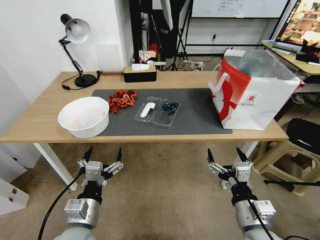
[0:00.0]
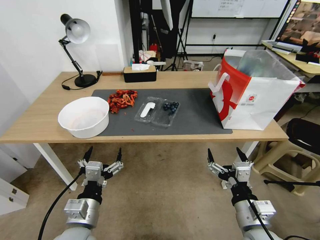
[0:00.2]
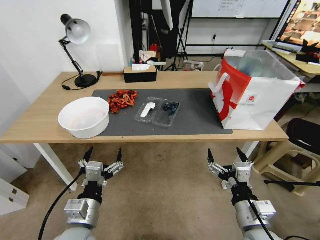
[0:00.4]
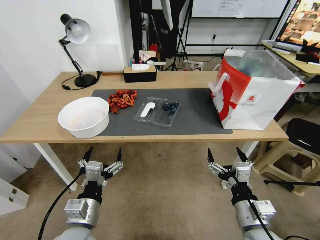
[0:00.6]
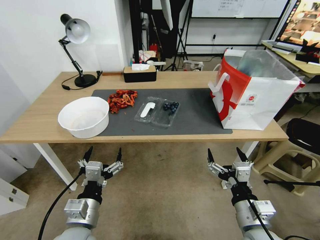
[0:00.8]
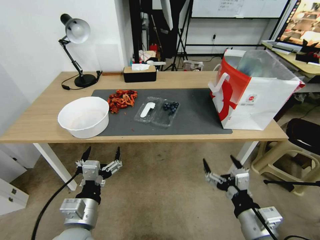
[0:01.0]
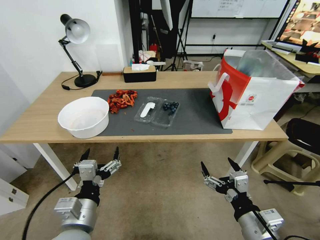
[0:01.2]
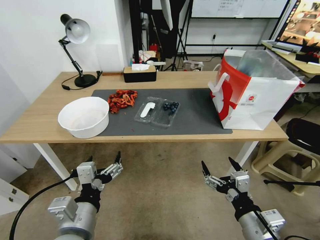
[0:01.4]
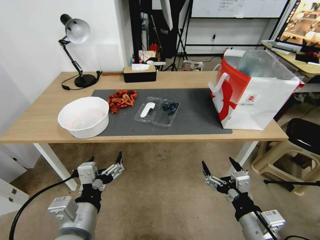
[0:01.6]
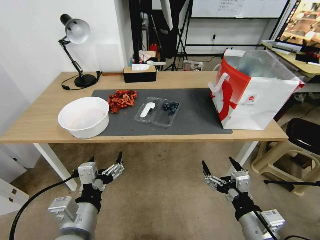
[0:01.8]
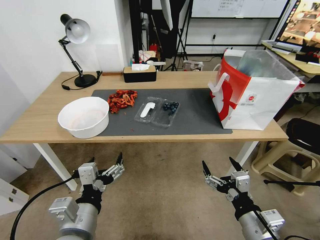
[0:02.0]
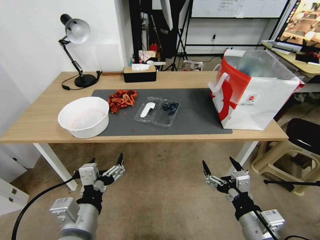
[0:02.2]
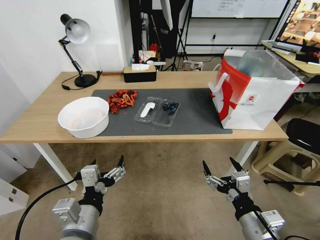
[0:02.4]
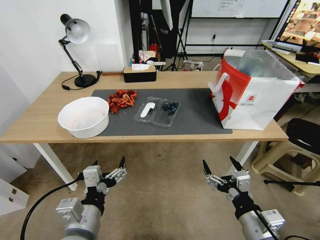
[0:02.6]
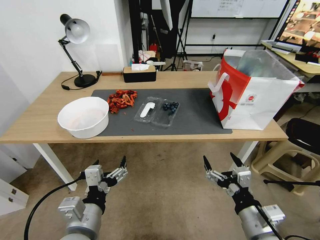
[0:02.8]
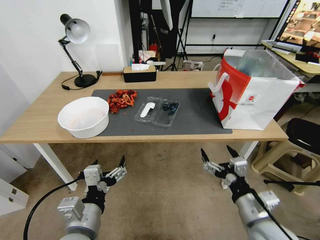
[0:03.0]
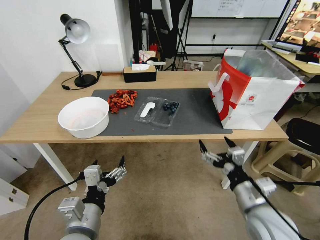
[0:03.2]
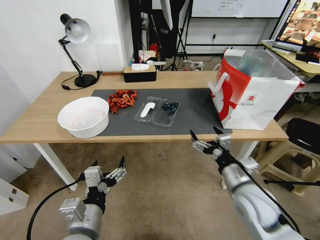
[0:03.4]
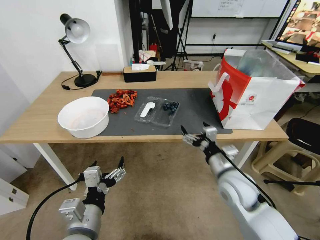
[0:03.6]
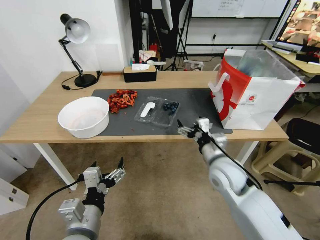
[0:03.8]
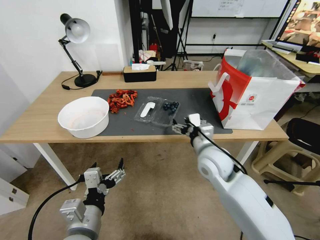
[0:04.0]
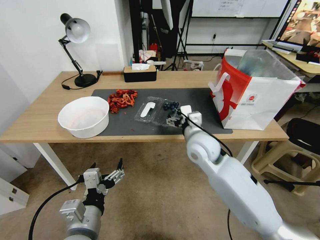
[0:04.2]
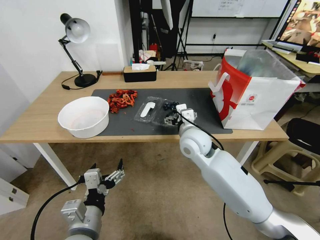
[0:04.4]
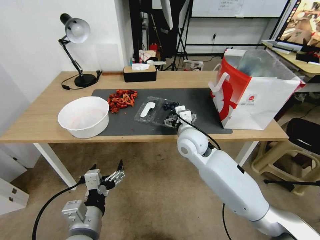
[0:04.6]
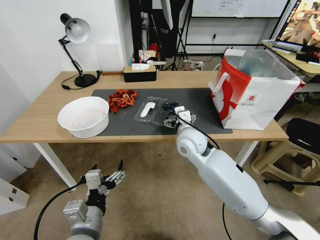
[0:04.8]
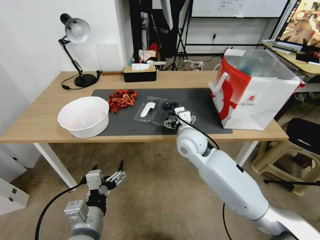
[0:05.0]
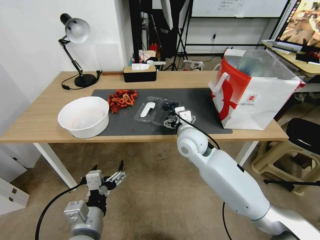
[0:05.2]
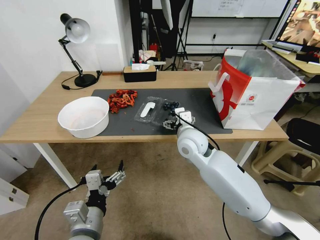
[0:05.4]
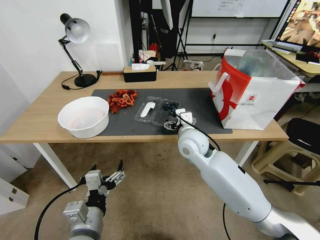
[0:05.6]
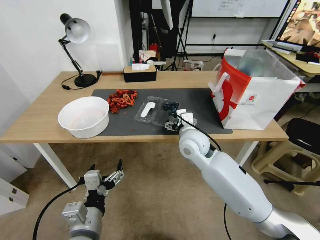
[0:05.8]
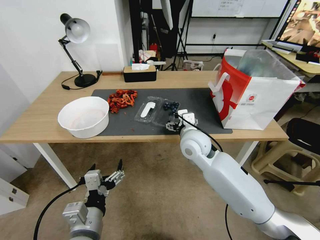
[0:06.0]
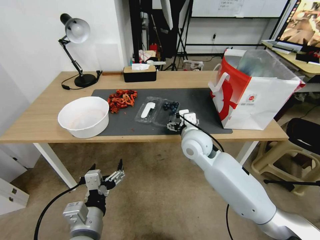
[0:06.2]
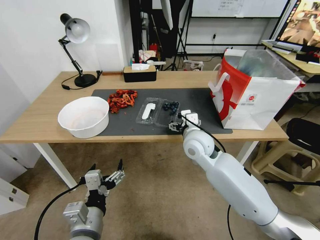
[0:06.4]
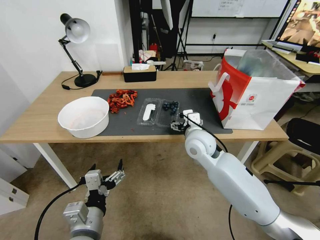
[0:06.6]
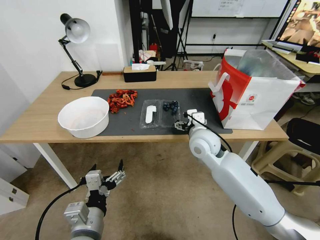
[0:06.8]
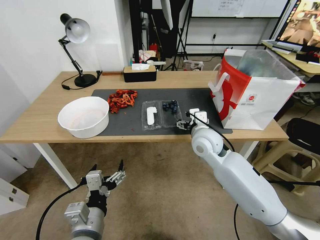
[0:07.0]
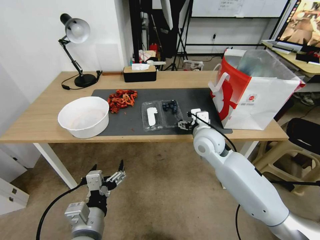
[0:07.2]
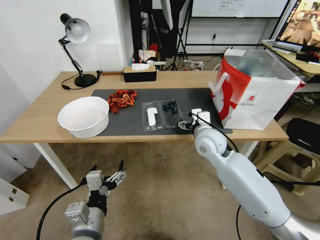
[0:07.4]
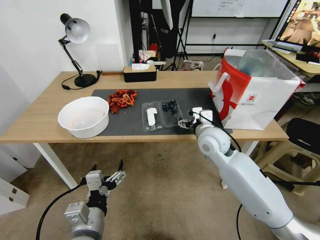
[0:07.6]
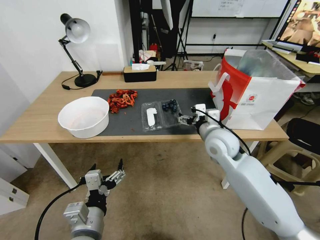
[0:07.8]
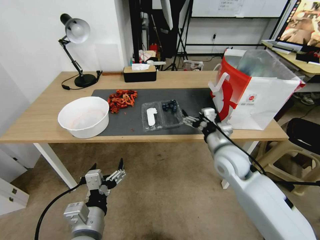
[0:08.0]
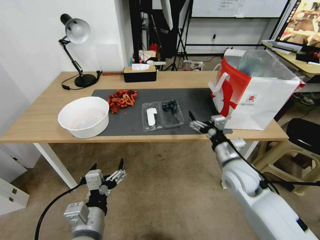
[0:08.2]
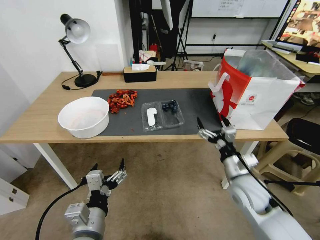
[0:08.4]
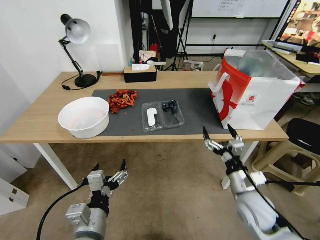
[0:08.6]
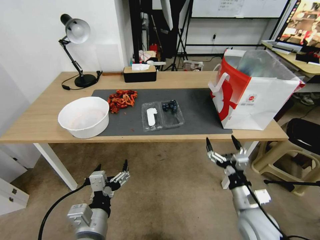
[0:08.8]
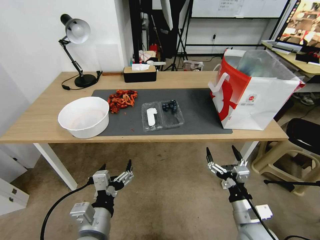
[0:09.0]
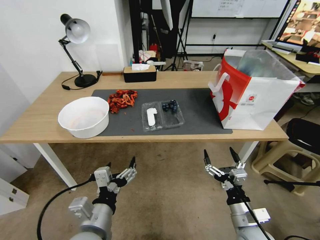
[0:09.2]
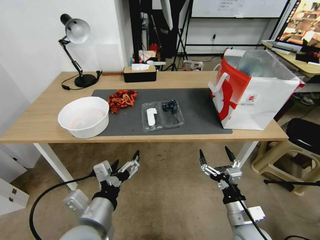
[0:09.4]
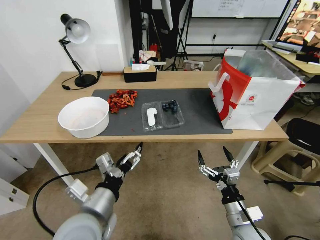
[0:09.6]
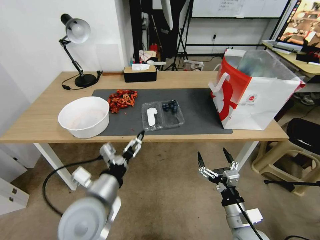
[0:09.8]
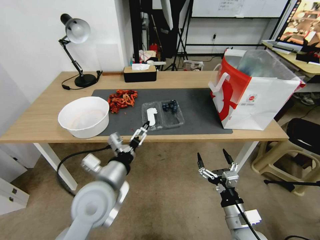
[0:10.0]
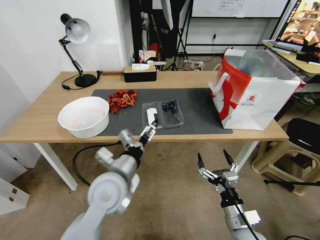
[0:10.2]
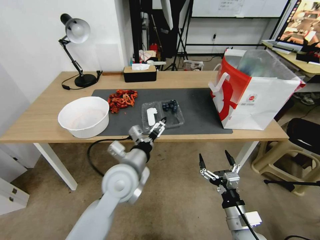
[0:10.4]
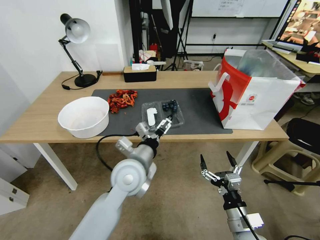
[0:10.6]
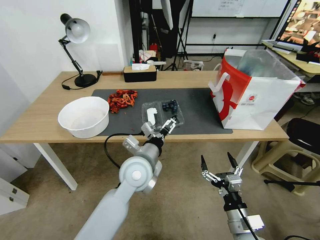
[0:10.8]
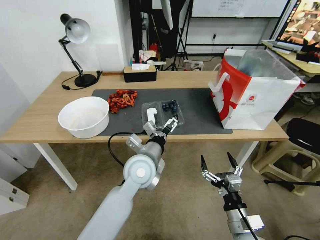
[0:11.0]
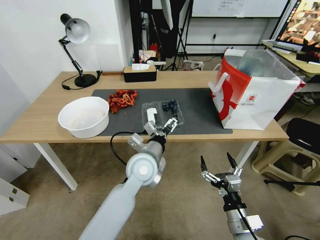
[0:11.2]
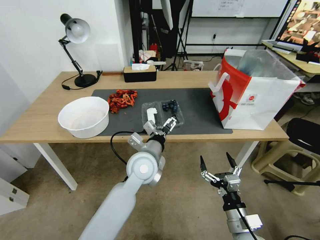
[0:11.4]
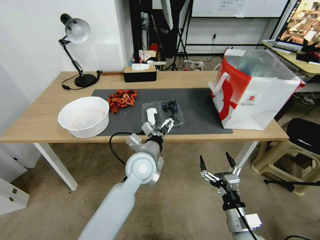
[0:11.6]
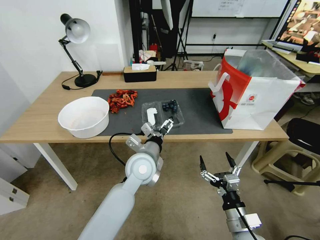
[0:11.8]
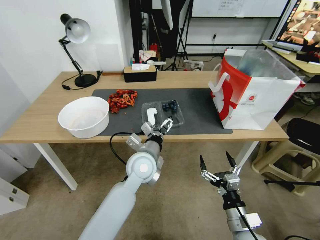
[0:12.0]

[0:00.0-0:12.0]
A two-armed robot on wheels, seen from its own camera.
Task of the whole recording: Close the takeout container lid, then place the container into the takeout bag.
0:01.6 to 0:03.0: The grippers stay close to where they were, moving slightly.
0:03.0 to 0:04.4: The right gripper heads forward and to the left, covering some 30 cm.
0:04.4 to 0:06.0: The grippers stay close to where they were, moving slightly.
0:06.0 to 0:07.6: The right gripper travels to the right by roughly 5 cm.
0:07.6 to 0:09.0: The right gripper moves backward and downward, roughly 30 cm.
0:09.0 to 0:10.4: The left gripper is displaced forward by roughly 15 cm.
0:10.4 to 0:12.0: The left gripper heads forward, covering about 5 cm.

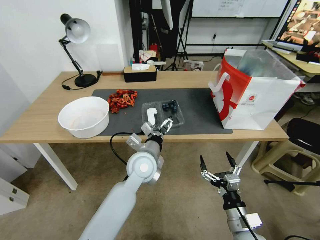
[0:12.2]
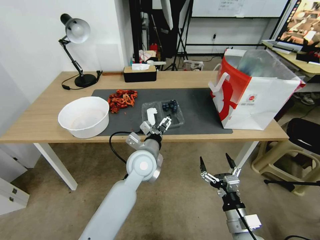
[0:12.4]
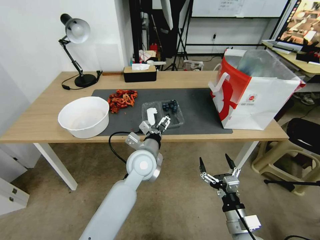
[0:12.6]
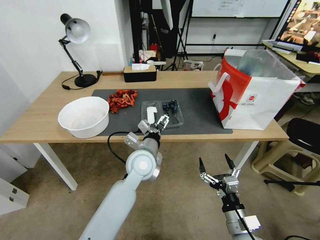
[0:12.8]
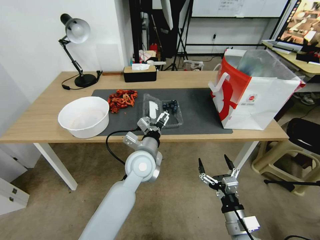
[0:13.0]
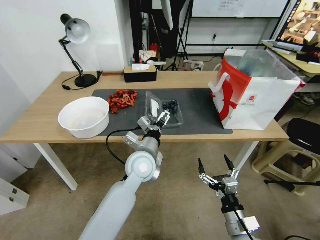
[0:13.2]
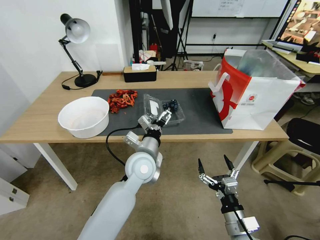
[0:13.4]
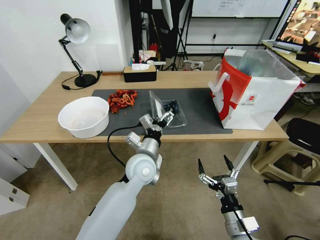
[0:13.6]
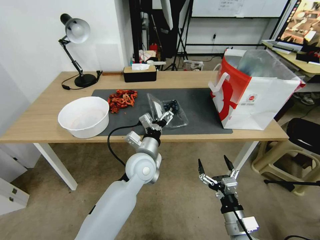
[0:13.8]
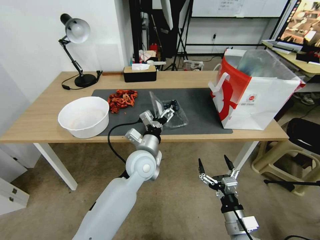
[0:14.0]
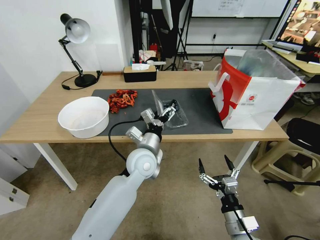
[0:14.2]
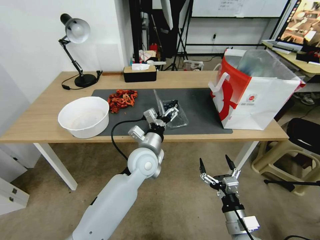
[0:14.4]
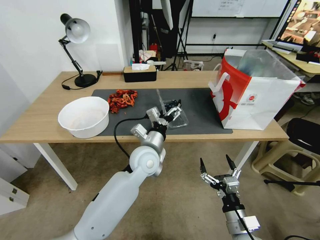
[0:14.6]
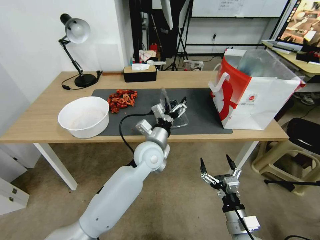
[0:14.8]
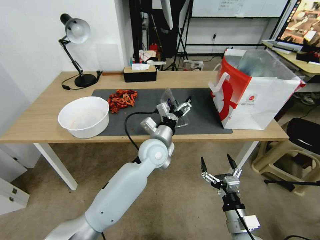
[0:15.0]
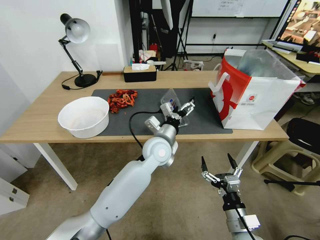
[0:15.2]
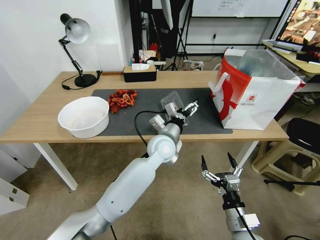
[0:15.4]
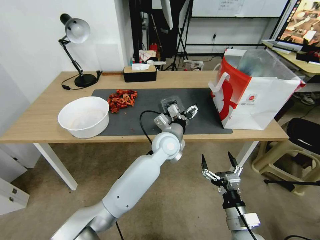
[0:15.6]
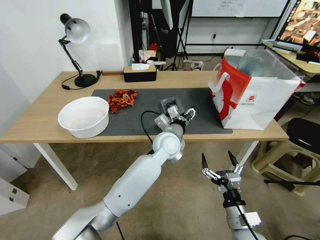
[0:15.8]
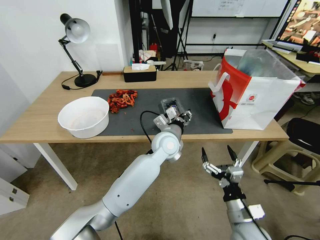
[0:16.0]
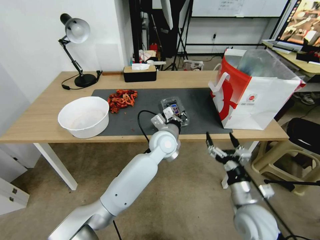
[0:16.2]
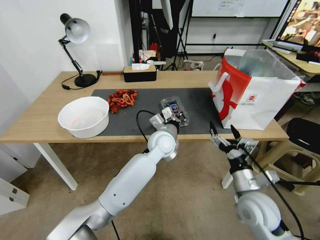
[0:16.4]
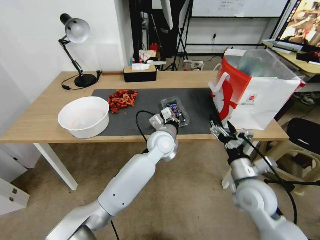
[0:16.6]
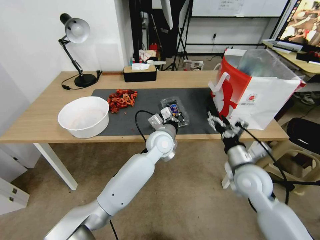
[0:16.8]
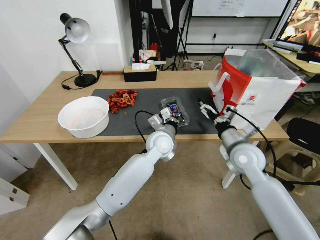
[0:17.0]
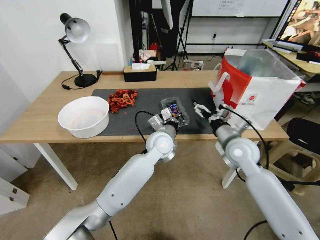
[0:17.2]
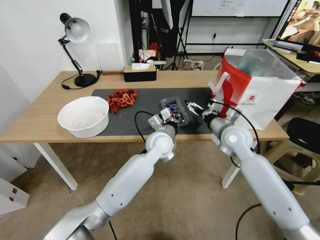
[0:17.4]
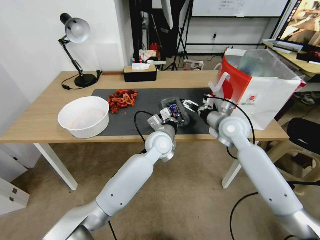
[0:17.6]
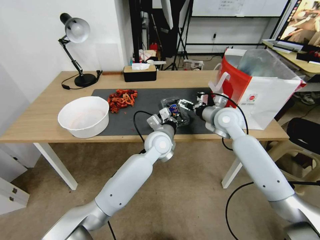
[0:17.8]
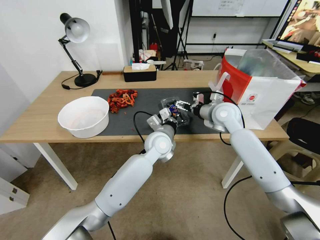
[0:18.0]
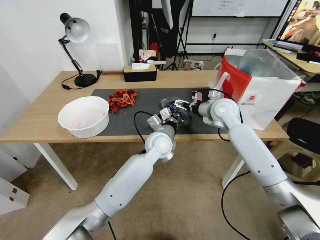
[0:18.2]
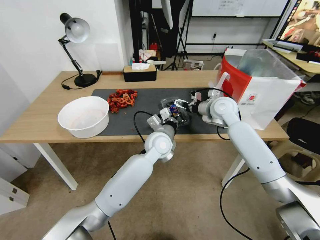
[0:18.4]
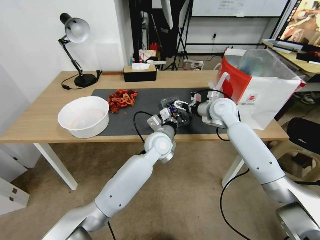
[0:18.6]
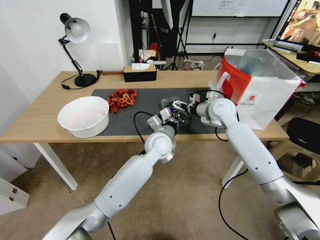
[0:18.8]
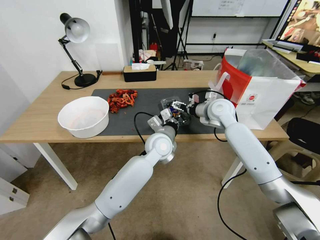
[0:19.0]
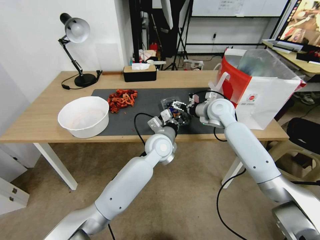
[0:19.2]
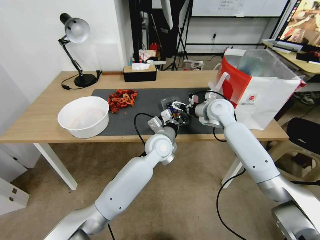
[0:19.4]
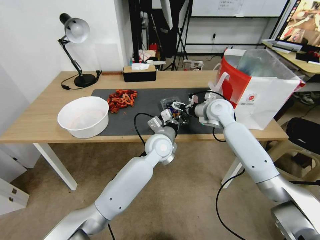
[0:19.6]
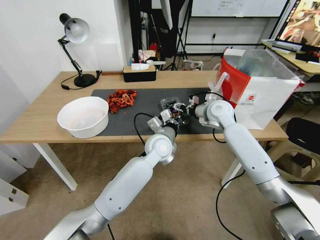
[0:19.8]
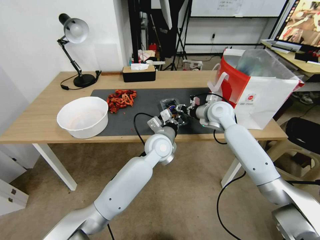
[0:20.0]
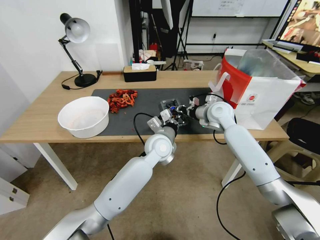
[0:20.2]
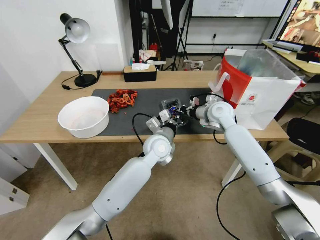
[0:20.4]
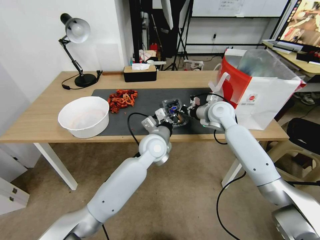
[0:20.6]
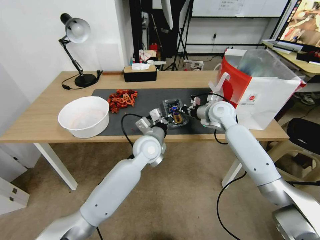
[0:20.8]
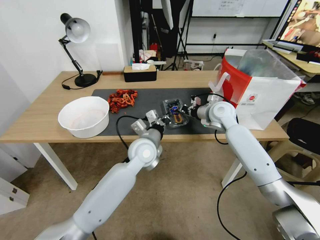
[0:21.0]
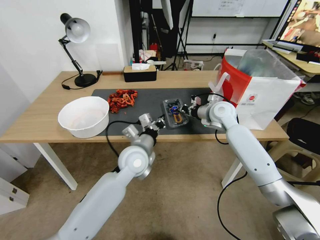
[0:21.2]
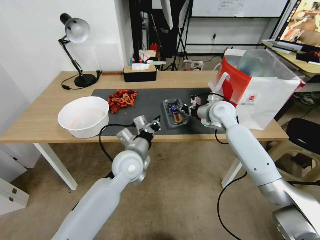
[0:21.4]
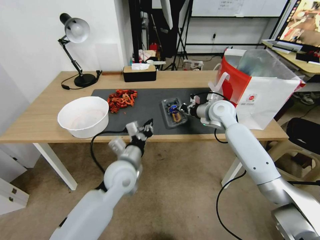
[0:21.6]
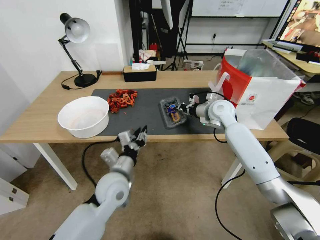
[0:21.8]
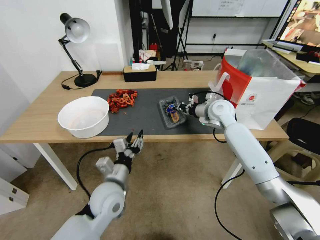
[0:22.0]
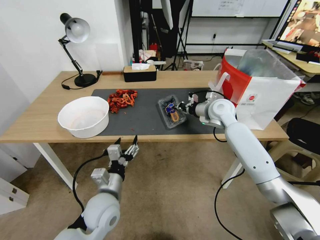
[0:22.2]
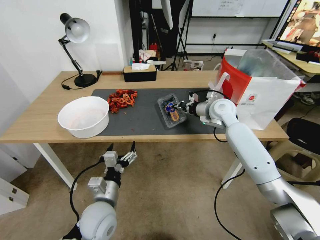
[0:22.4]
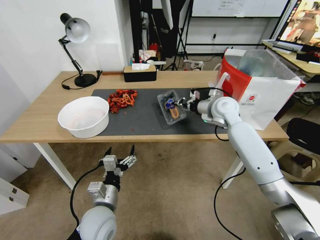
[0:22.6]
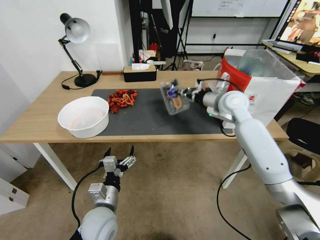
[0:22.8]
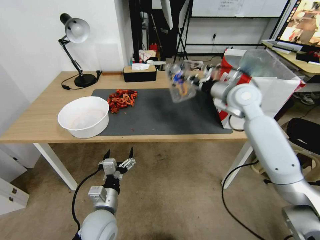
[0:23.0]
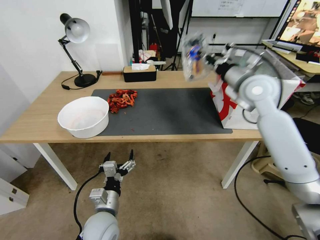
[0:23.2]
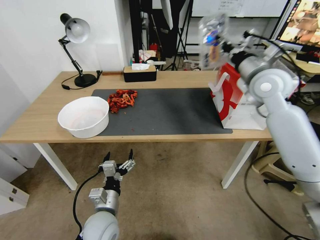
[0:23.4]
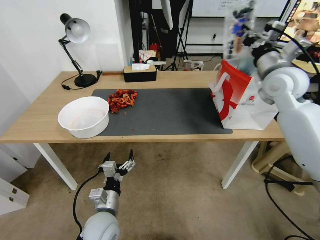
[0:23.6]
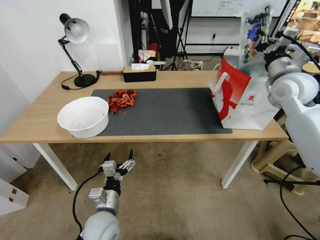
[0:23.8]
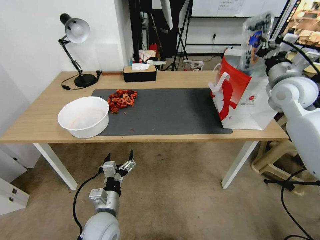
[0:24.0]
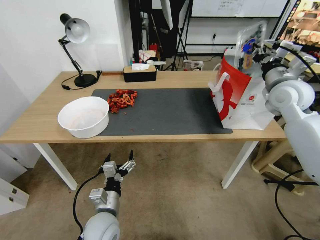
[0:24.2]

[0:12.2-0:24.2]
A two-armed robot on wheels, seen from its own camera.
Task of the whole recording: Close the takeout container lid, then place the container into the takeout bag.
0:13.8 to 0:15.2: The left gripper is displaced to the right and forward by approximately 10 cm.
0:15.2 to 0:16.6: The left gripper closes up. Meanwhile the right gripper moves forward and upward, roughly 15 cm.
0:16.6 to 0:18.2: The right gripper is displaced forward and upward by about 25 cm.
0:18.2 to 0:19.8: The grippers move only a little.
0:19.8 to 0:21.2: The left gripper travels to the left and backward by some 10 cm, while the right gripper closes.
0:21.2 to 0:22.6: The left gripper shifts approximately 20 cm backward, to the left and downward, and opens.
0:22.6 to 0:24.2: The right gripper shifts roughly 20 cm to the right, upward and backward.
